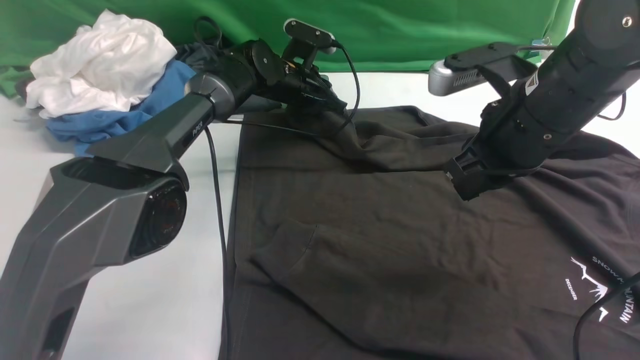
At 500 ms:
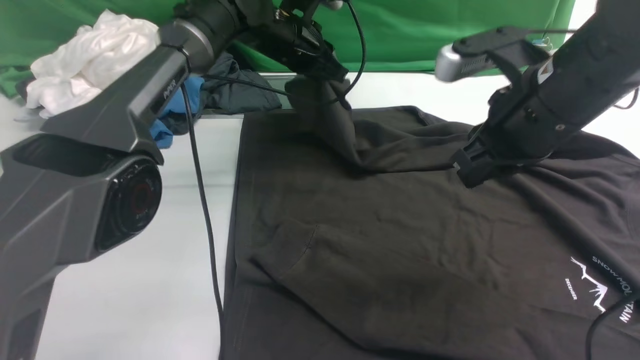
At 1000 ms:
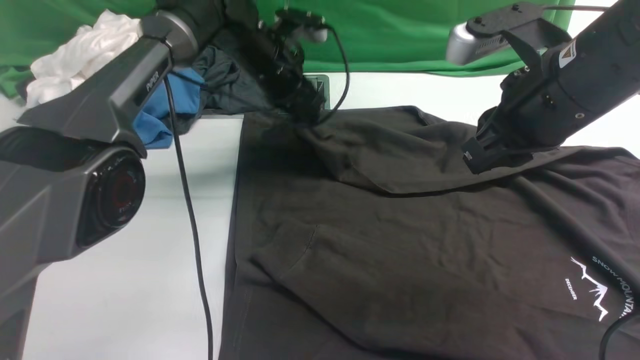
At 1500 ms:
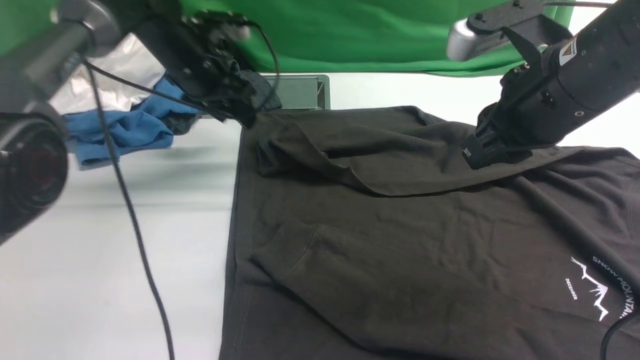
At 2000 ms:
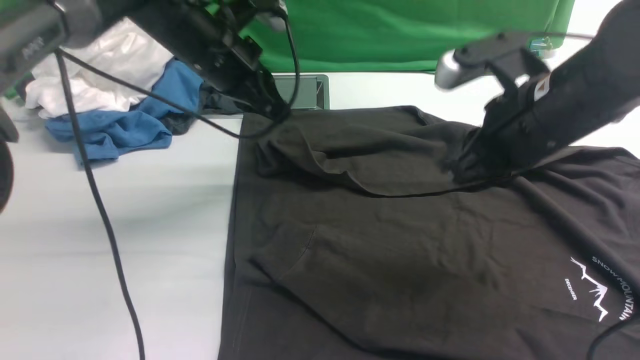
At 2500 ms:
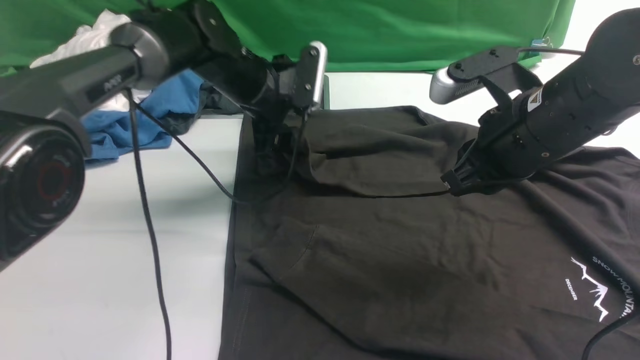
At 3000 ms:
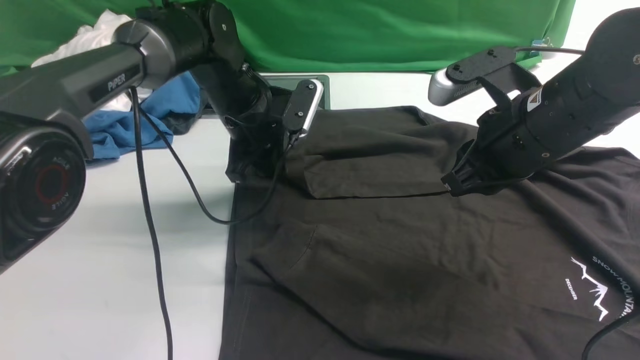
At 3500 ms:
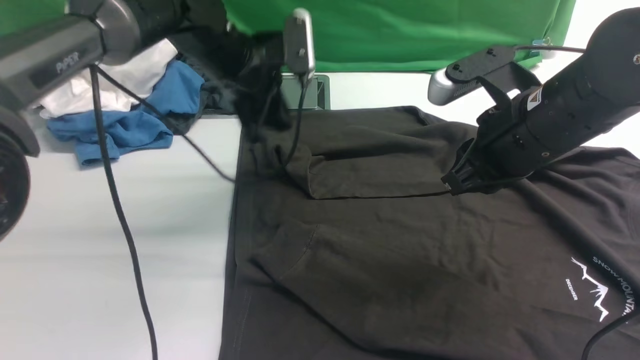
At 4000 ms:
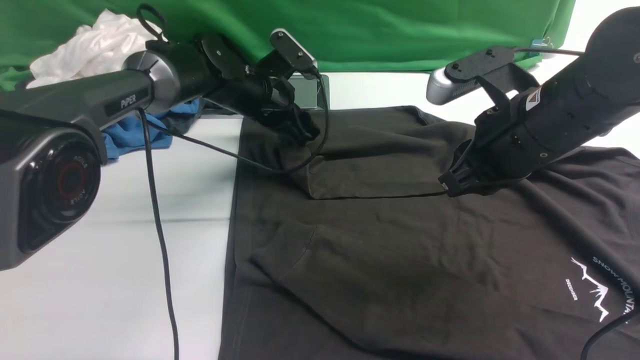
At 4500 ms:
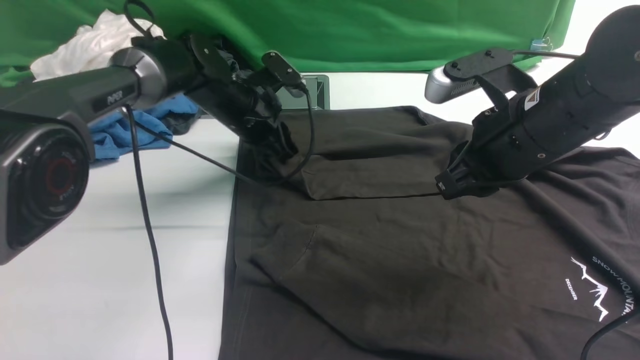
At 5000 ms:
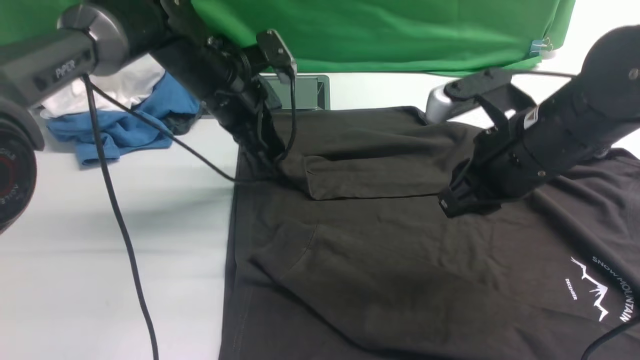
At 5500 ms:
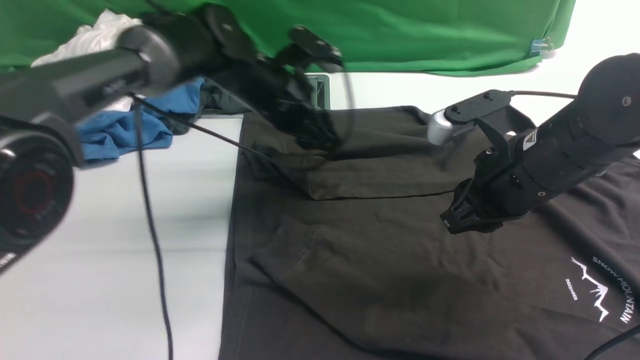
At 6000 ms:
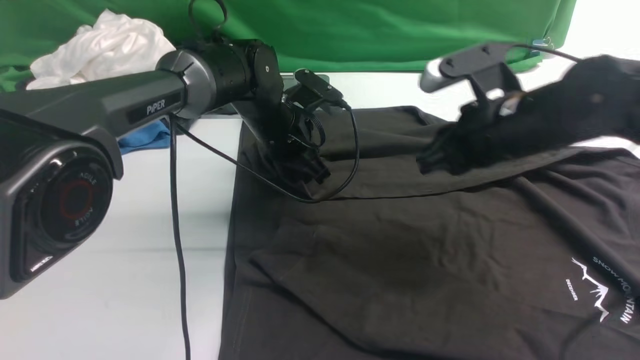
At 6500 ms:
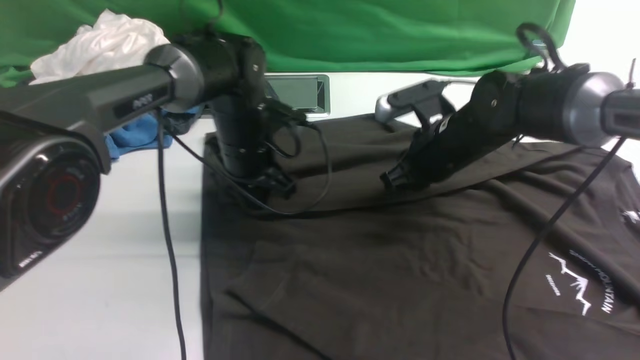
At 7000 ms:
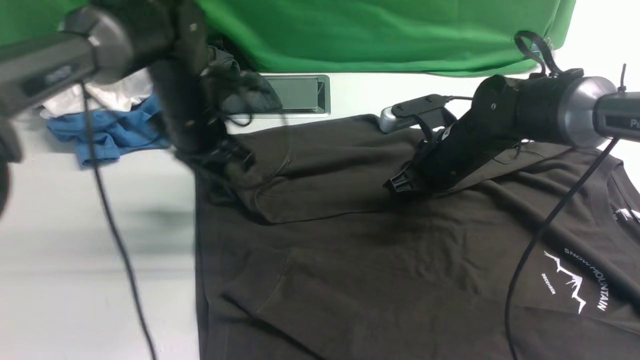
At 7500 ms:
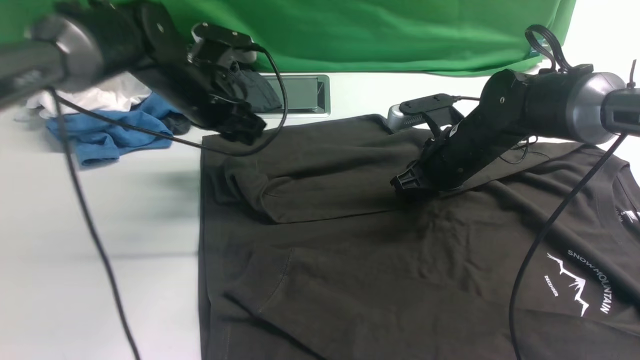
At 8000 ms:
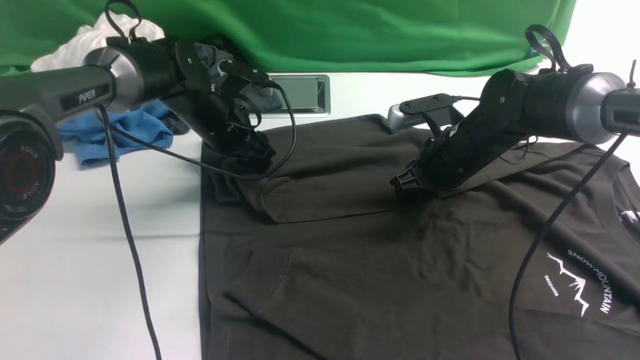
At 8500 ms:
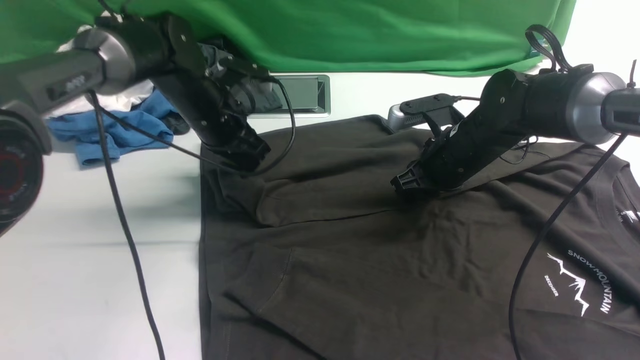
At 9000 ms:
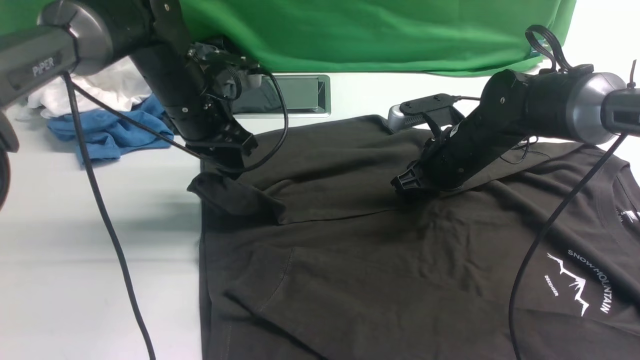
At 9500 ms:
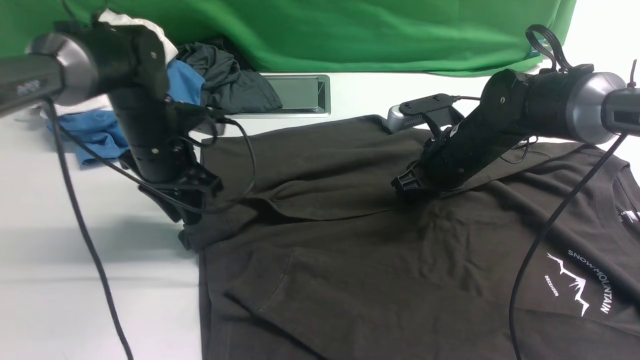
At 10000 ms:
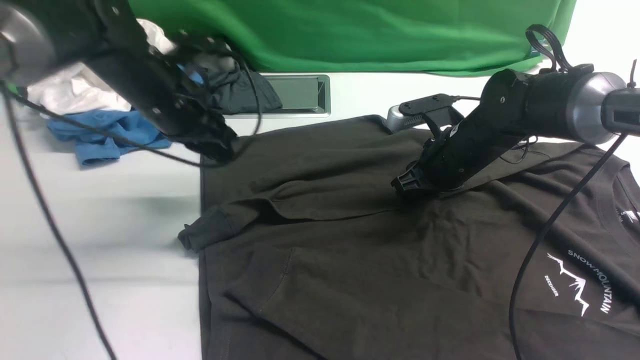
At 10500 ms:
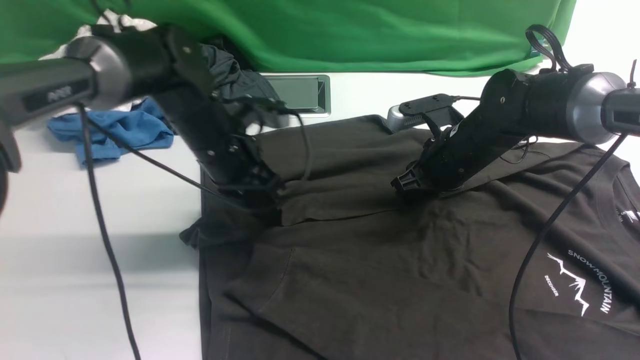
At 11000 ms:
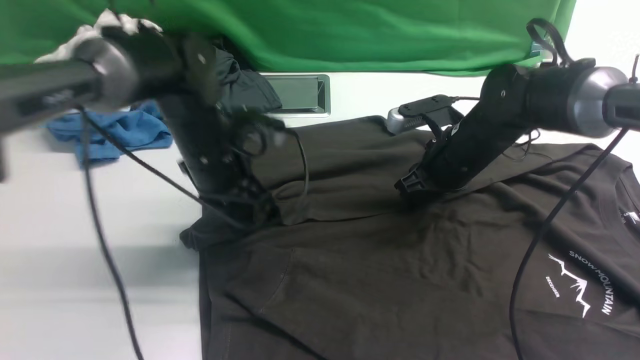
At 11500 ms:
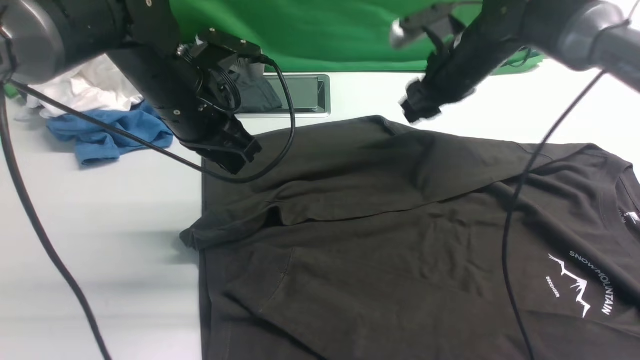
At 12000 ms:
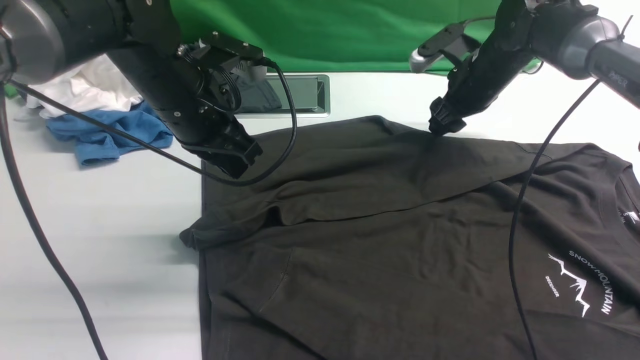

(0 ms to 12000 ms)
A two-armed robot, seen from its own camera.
0 ms - 2000 ms: The left gripper moves upward, backward and to the left, about 15 cm.
2000 ms - 4000 ms: The left gripper moves downward, approximately 10 cm, and opens.
4000 ms - 6000 ms: The left gripper shifts approximately 5 cm backward, and closes its fingers; the right gripper shifts by roughly 5 cm.
6000 ms - 8000 ms: The left gripper shifts some 10 cm to the left, and opens its fingers. Meanwhile the right gripper heads downward and forward, covering roughly 10 cm.
8000 ms - 10000 ms: The left gripper travels upward and backward by roughly 10 cm, and closes.
10000 ms - 12000 ms: The right gripper moves forward, some 10 cm, and opens up. The left gripper shifts about 5 cm upward.

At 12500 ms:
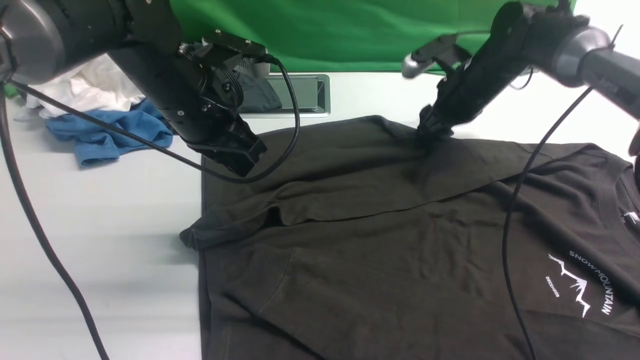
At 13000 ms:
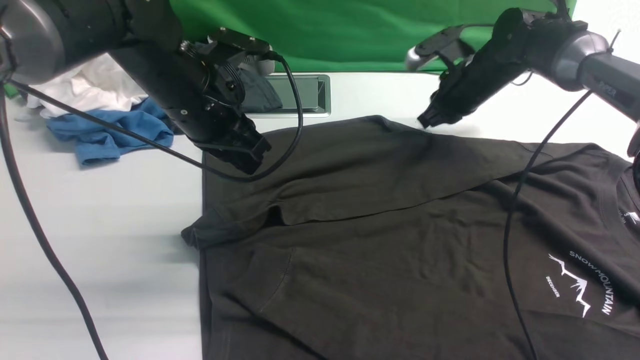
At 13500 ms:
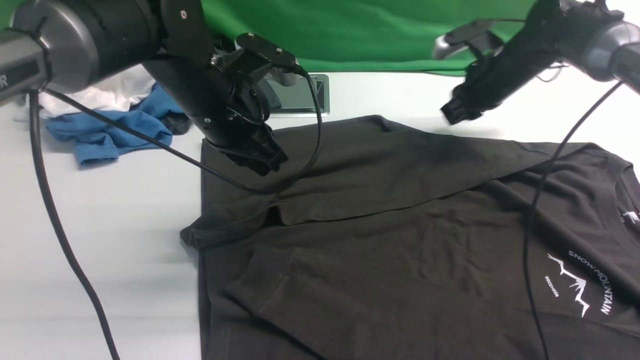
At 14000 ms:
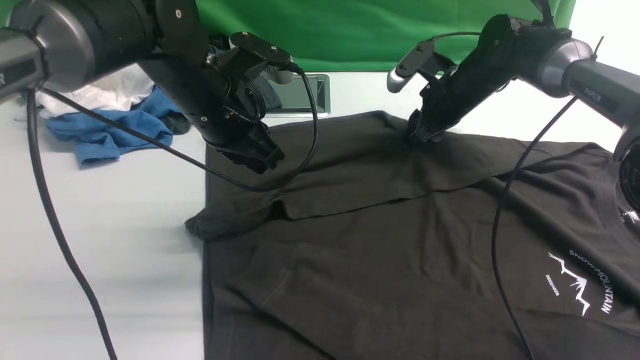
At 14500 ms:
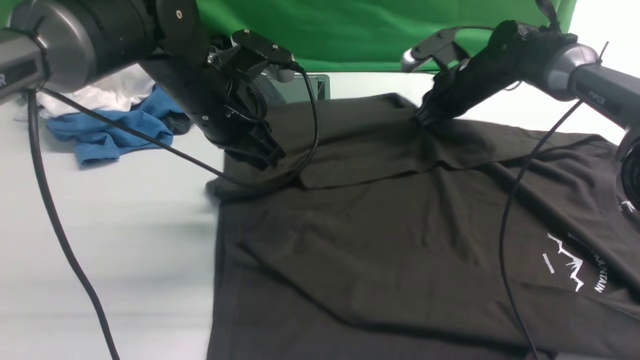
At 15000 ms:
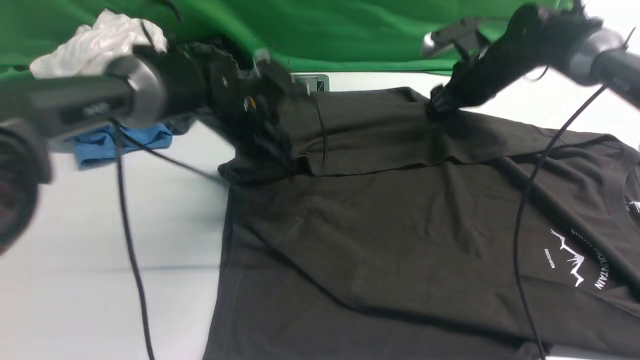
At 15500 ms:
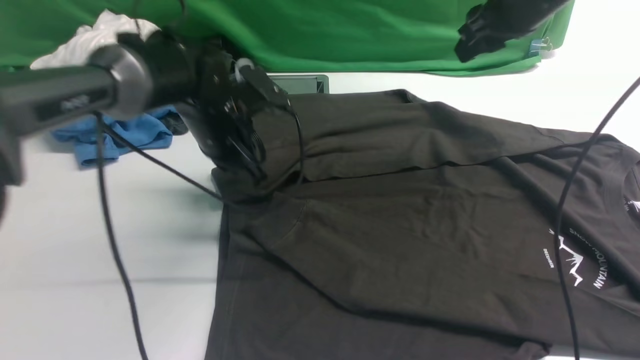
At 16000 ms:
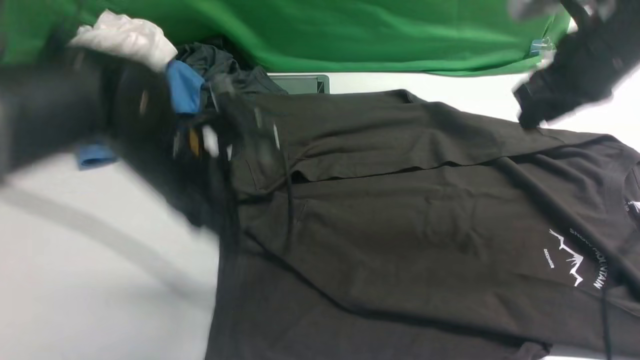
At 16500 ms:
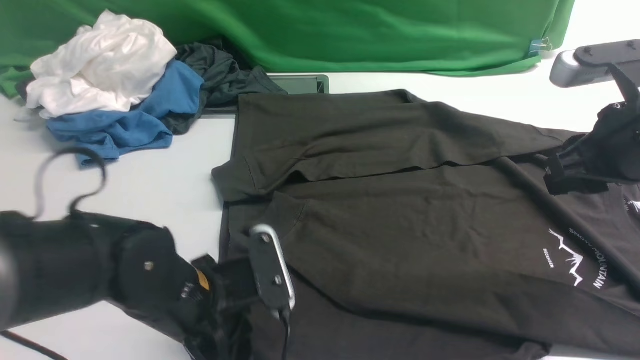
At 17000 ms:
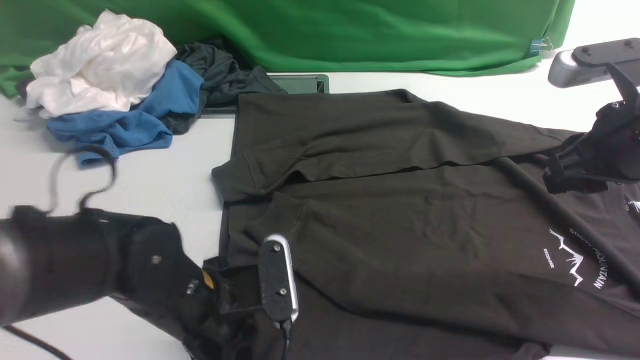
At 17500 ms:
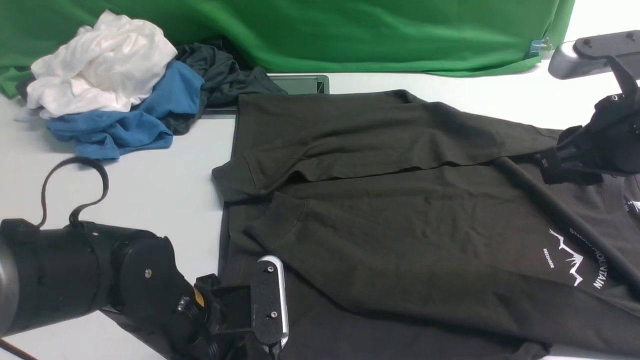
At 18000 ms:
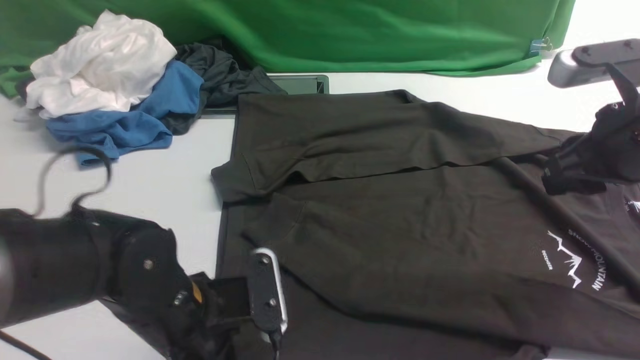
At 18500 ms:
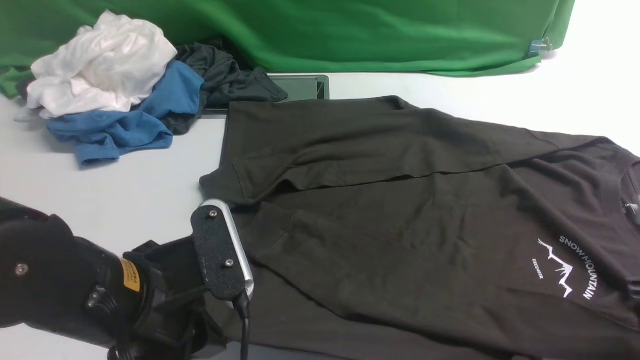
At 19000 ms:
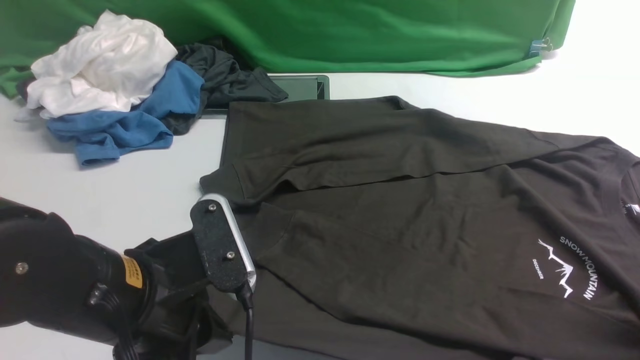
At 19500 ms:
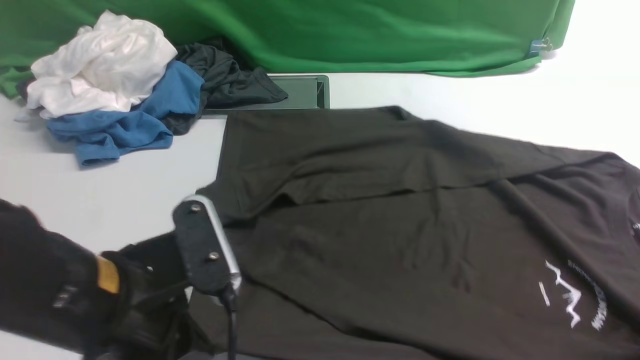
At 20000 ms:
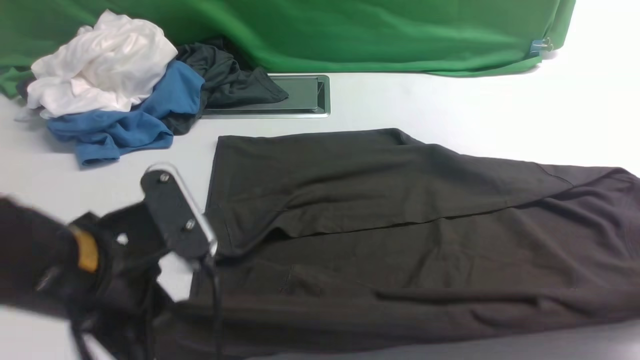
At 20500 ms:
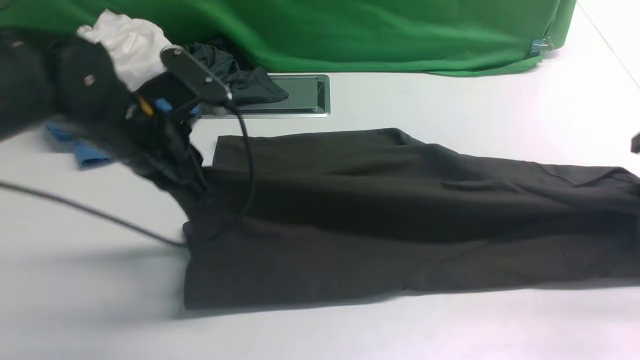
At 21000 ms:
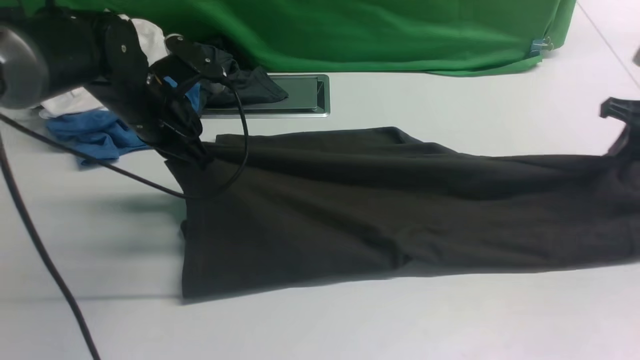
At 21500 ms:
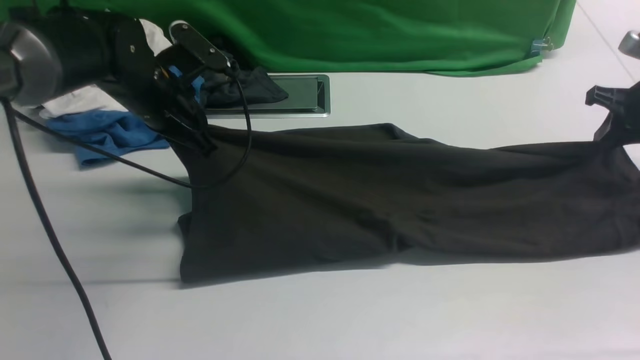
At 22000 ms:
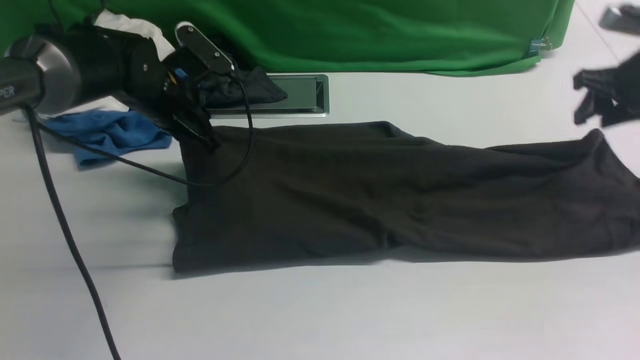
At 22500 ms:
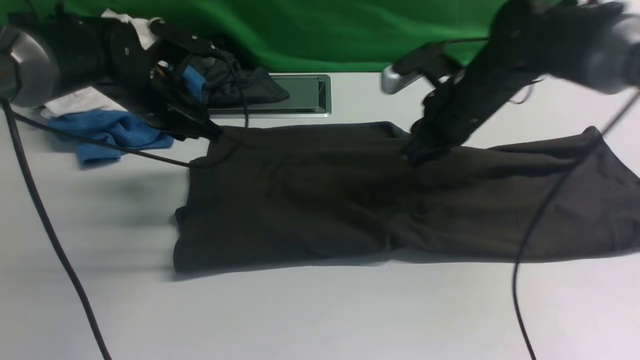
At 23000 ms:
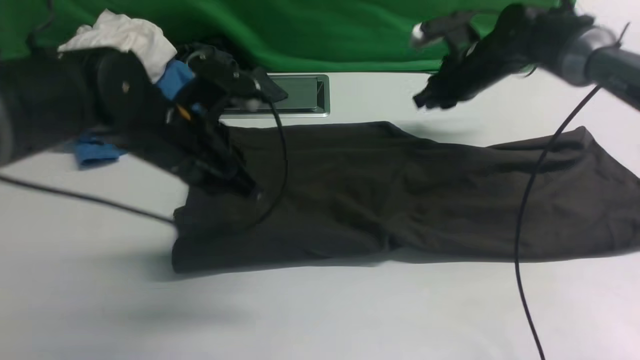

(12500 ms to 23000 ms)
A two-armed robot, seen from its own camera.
Step, 12500 ms - 15500 ms: use the left arm to drag and drop the cuff onto the cuff closest to the left arm.
Step, 16000 ms - 19500 ms: use both arms simultaneously to clamp the lower edge of the clothing fabric.
12500 ms - 14500 ms: The right gripper closes up.
14500 ms - 16500 ms: The left gripper goes about 20 cm backward and downward, and opens its fingers. The right gripper is displaced backward and upward by some 30 cm.
16500 ms - 19000 ms: The right gripper is displaced downward, to the right and backward by approximately 20 cm, and opens up. Meanwhile the left gripper shifts about 10 cm upward, and closes.
19000 ms - 21000 ms: Both grippers move forward, about 20 cm. The right gripper closes up.
21000 ms - 23000 ms: The right gripper moves to the left and forward, approximately 25 cm. Meanwhile the left gripper heads backward, covering some 10 cm, and opens, then closes once more.
